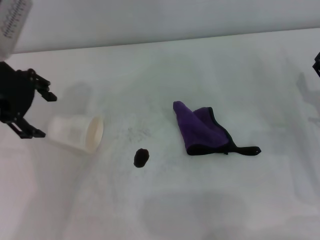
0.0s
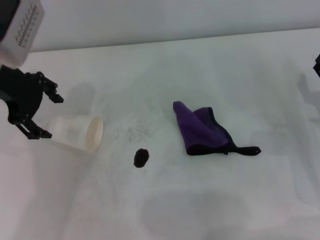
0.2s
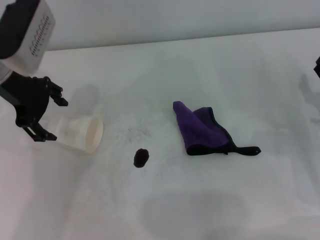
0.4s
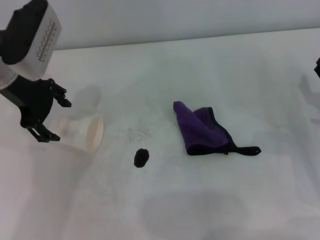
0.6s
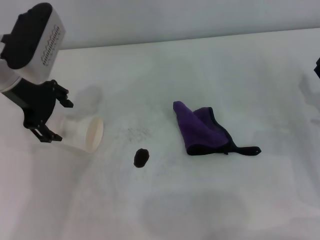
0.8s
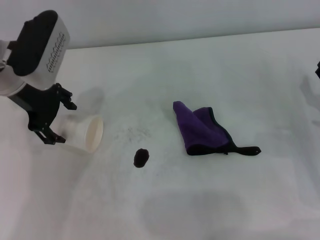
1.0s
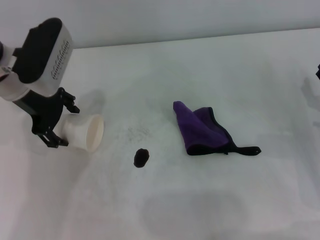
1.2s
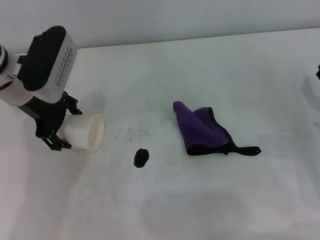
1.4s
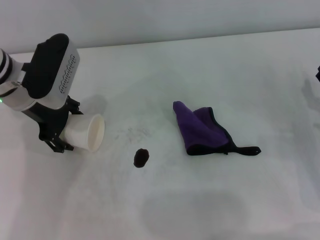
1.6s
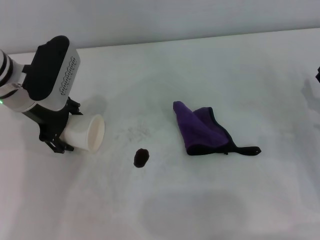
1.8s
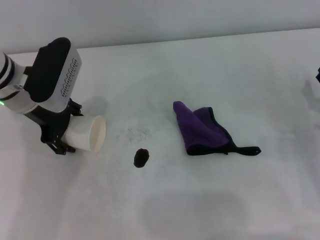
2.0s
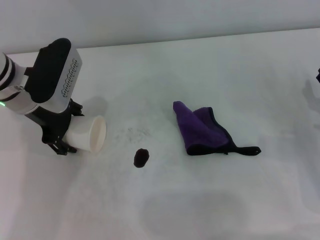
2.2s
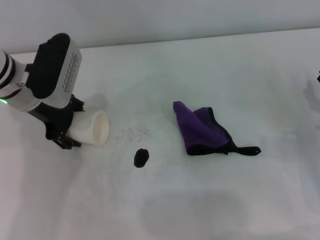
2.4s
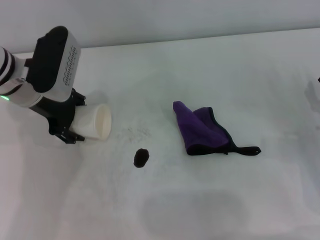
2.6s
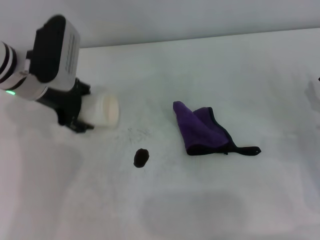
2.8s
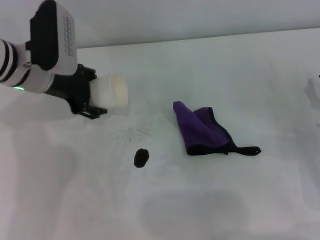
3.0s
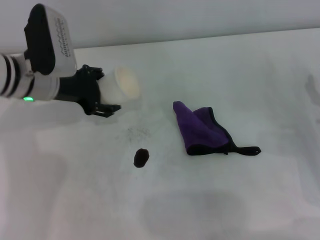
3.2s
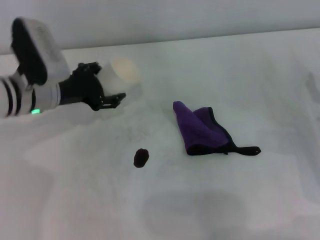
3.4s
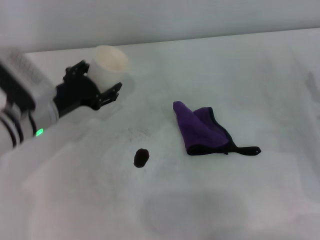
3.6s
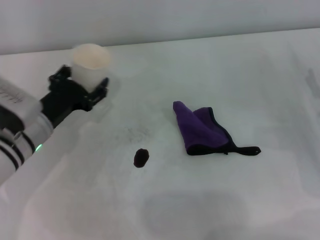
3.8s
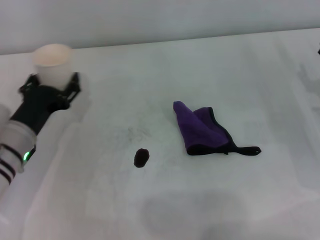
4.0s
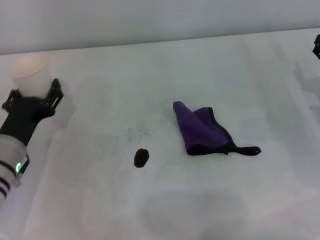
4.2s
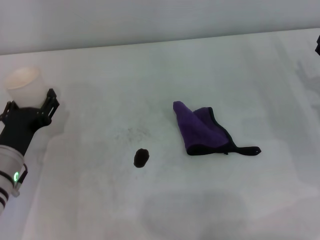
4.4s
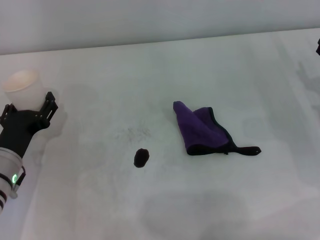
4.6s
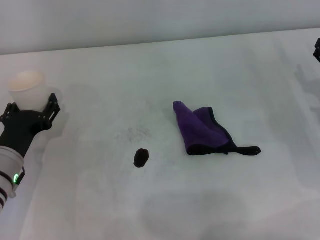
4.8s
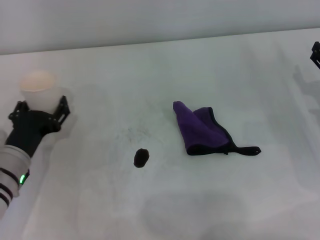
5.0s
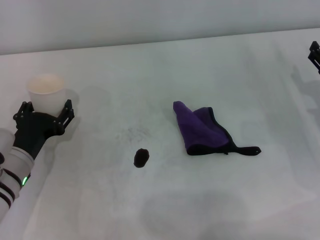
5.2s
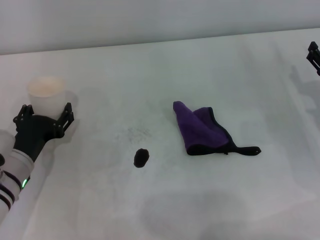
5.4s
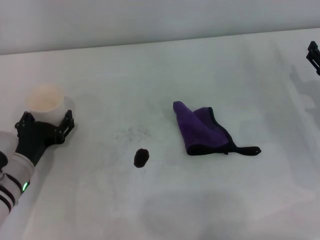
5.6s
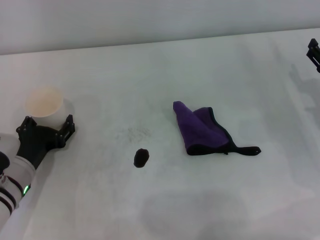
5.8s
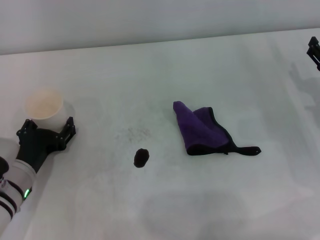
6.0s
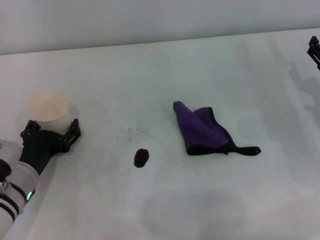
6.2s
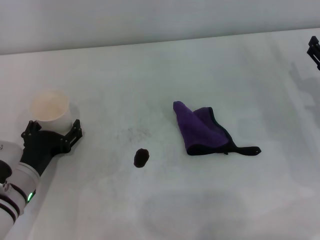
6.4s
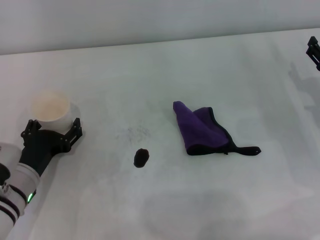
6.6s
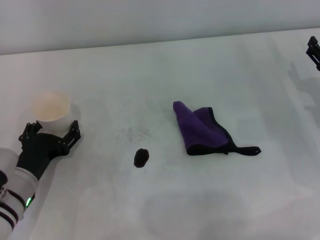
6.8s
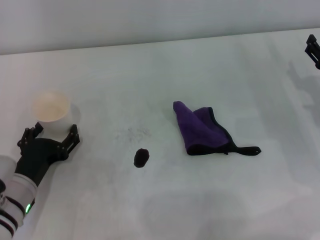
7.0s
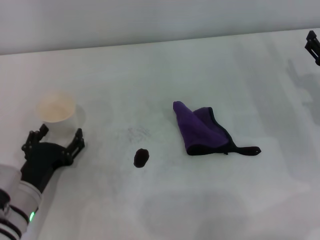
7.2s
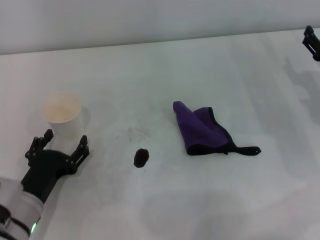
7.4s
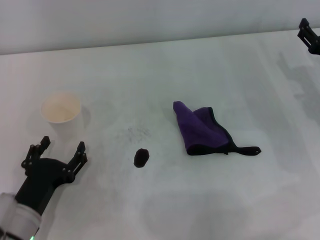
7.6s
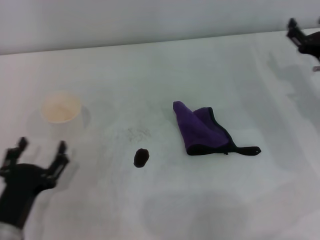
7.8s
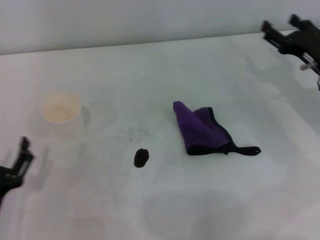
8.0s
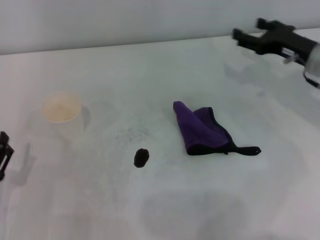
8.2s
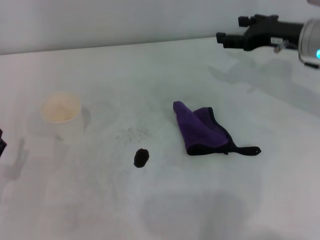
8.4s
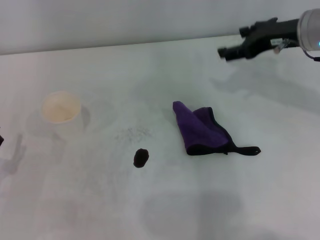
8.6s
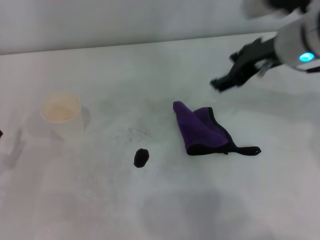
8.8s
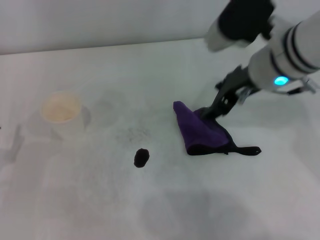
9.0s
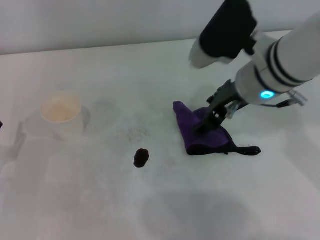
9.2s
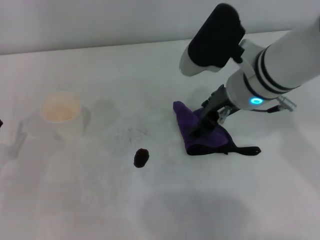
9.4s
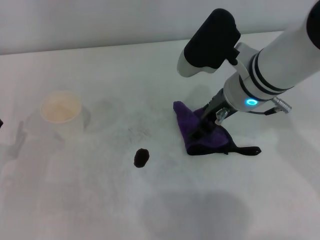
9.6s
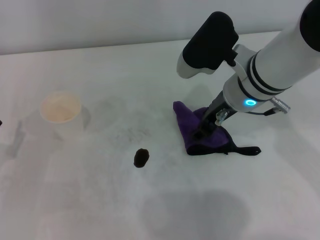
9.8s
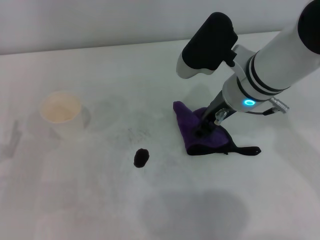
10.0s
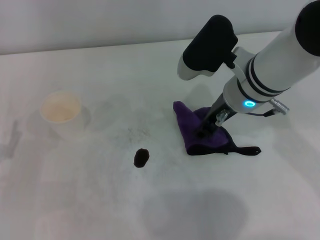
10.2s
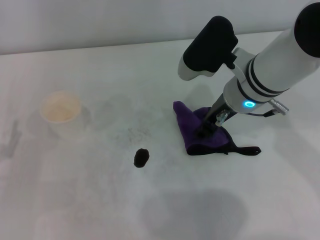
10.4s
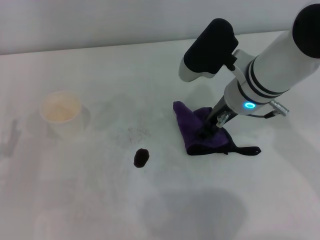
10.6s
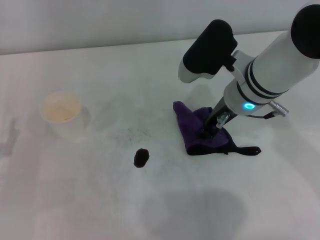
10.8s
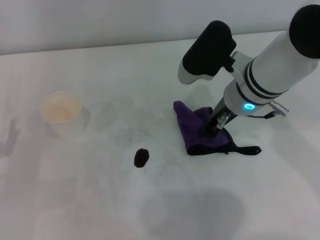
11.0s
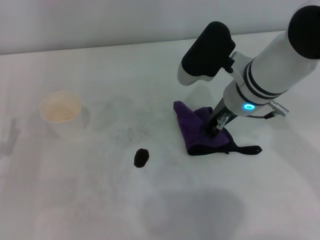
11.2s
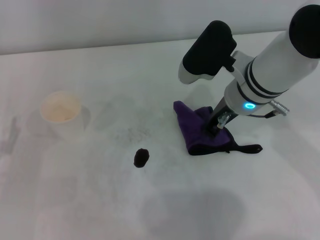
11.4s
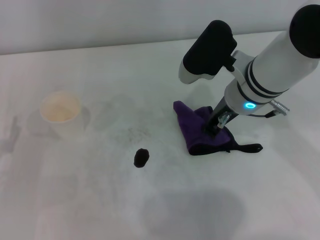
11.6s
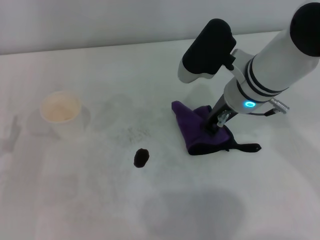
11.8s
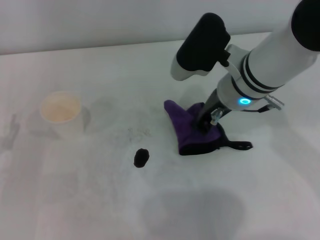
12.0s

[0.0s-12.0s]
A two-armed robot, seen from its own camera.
Step, 0.0s to 2.2s: Grasp the paper cup with the left gripper.
Step, 2.4s to 6.8s: Stand the paper cup upright with the left gripper.
Step, 7.0s to 11.2s: Grasp the rag with the right gripper.
0.0s to 1.6s: The left gripper heads downward, covering some 10 cm.
3.0s to 4.4s: The left gripper heads backward and downward, covering roughly 20 cm.
4.4s to 6.0s: The grippers stay close to where they were, moving slightly.
6.0s to 7.6s: The left gripper goes some 5 cm backward.
7.6s to 9.0s: The left gripper is displaced to the left by approximately 10 cm. Meanwhile the right gripper shifts some 20 cm to the left and upward.
9.0s to 10.4s: The right gripper ends up about 5 cm from where it was, and closes.
10.4s to 12.0s: The right gripper closes up.

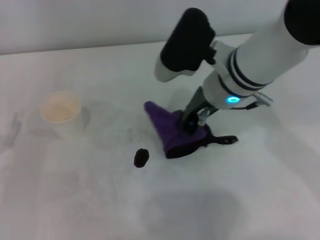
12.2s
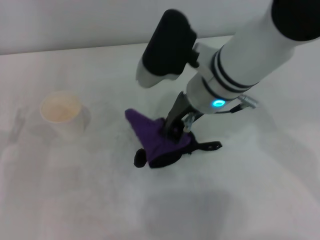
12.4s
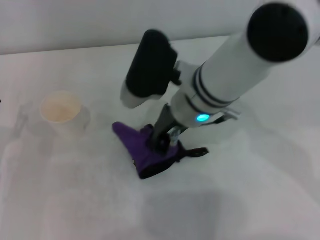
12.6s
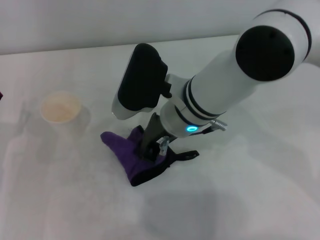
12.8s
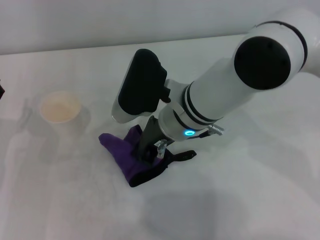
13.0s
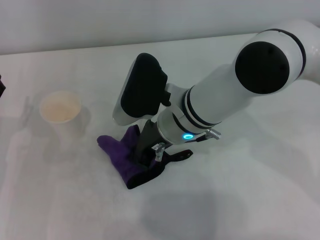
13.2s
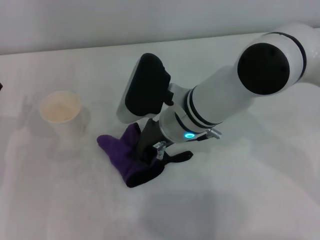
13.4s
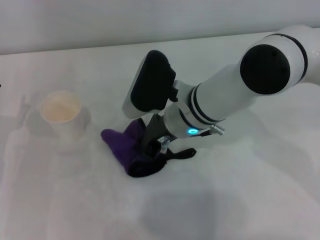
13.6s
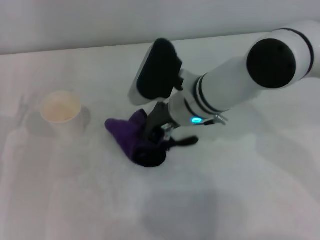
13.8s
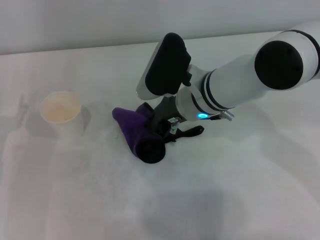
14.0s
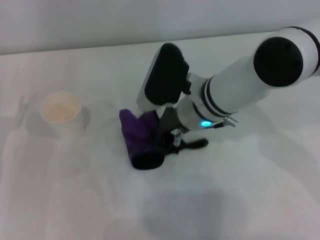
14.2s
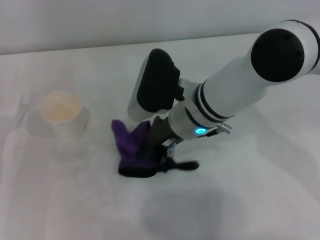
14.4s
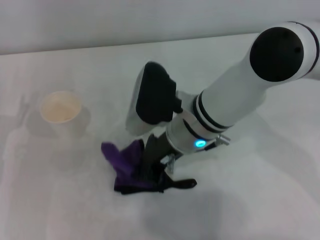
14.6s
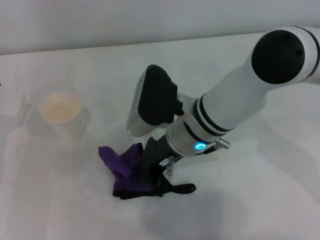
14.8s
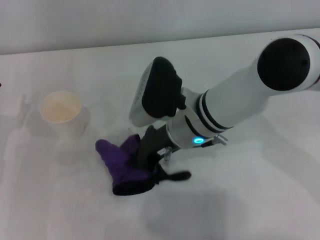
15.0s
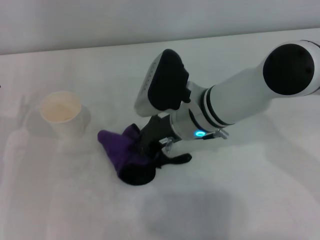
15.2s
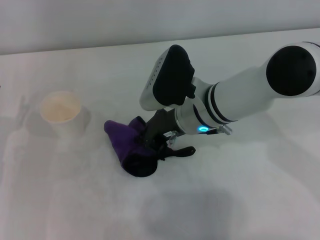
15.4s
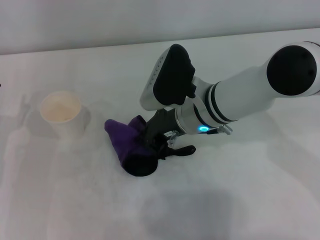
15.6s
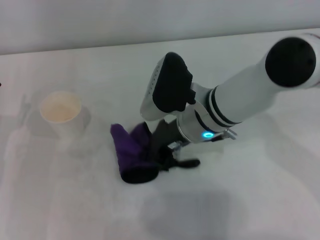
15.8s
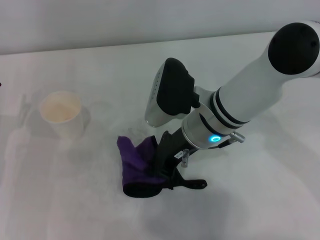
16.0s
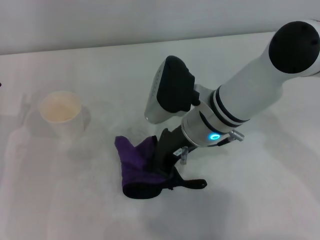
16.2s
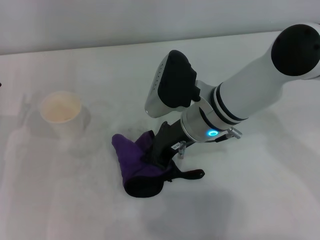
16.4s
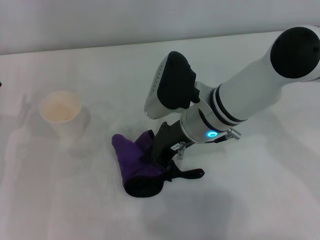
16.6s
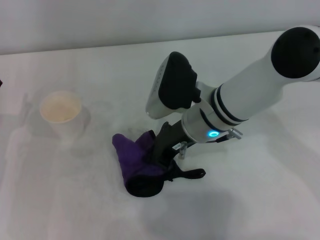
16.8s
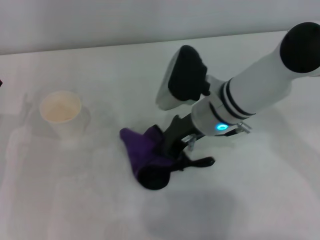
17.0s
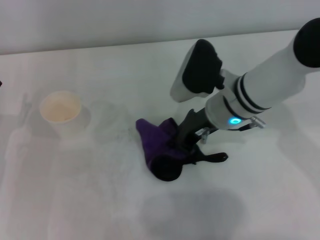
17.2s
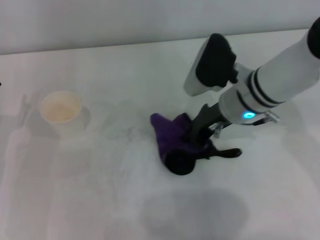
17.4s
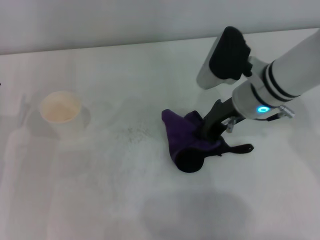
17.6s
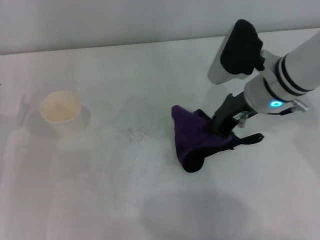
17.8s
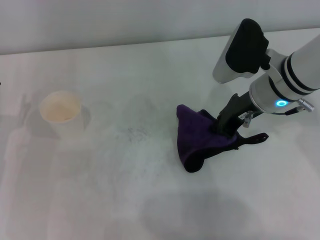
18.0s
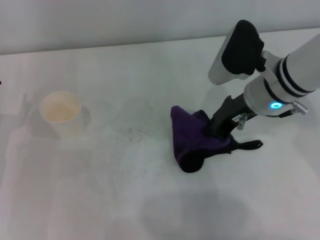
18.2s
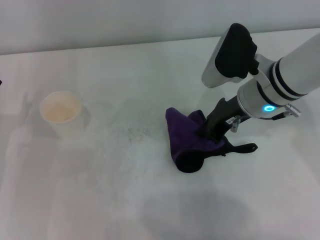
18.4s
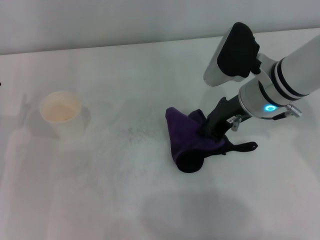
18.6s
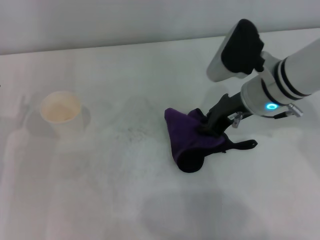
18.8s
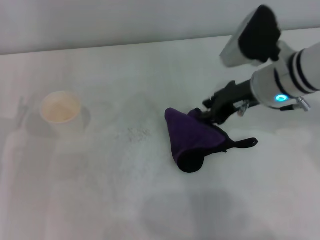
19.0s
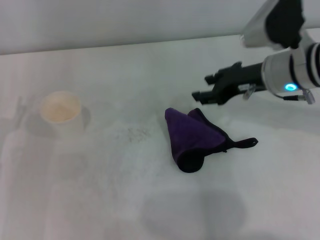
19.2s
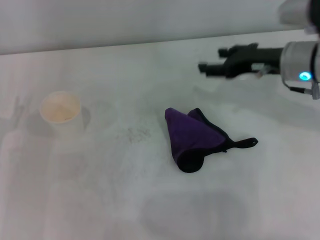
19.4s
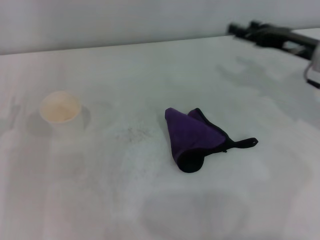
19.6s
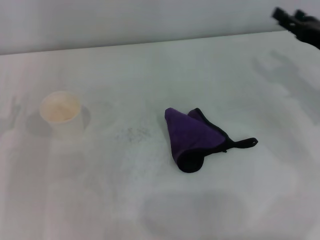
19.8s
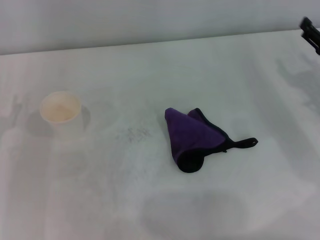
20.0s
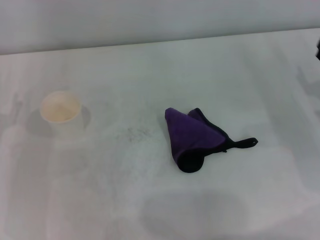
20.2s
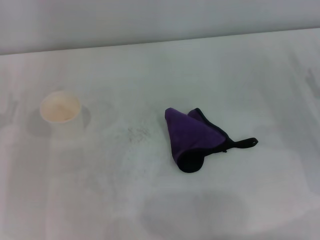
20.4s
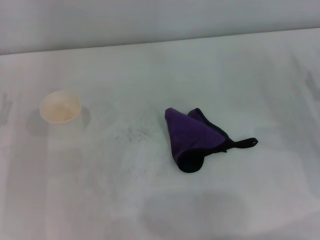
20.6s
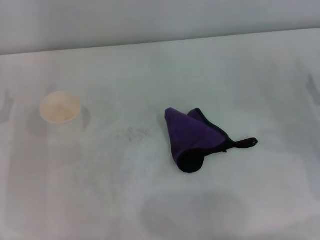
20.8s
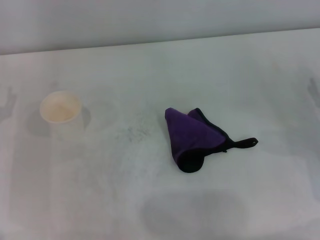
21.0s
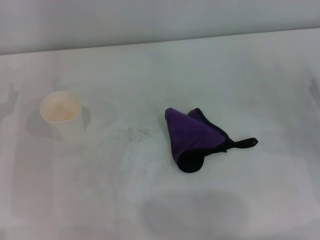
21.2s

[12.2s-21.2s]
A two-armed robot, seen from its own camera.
Step, 12.2s to 17.6s: Wipe the stains off the table with the right gripper.
Step, 17.8s to 18.8s: Place the rag on the table with the right gripper.
12.2s to 13.8s: The right gripper travels downward by about 5 cm.
13.8s to 16.6s: The grippers move only a little.
16.6s to 18.2s: The right gripper heads to the right, covering some 10 cm.
18.2s to 19.8s: The right gripper heads to the right, covering about 15 cm, and opens.
19.8s to 21.2s: The right gripper moves downward and backward, some 10 cm.

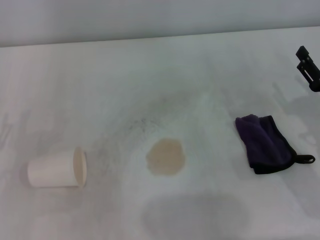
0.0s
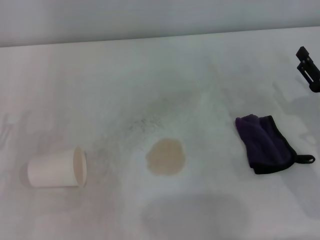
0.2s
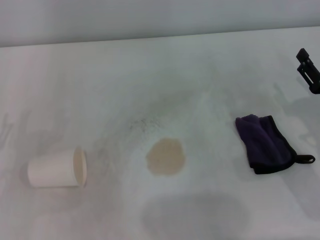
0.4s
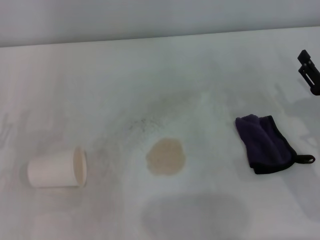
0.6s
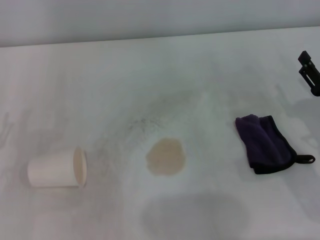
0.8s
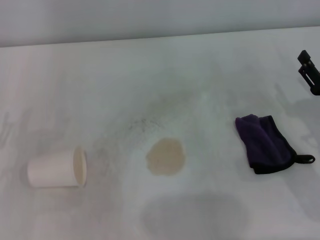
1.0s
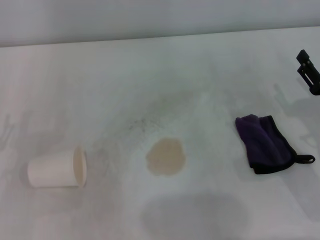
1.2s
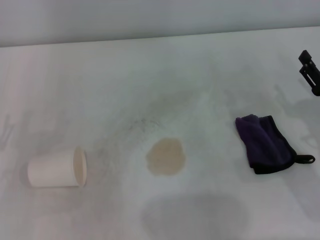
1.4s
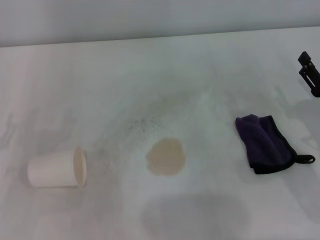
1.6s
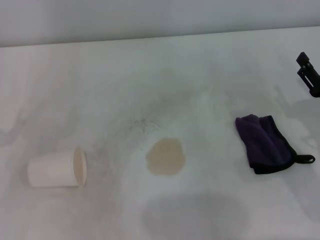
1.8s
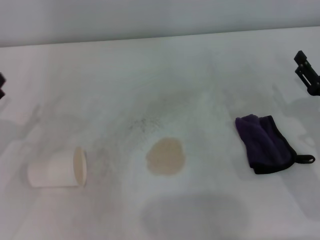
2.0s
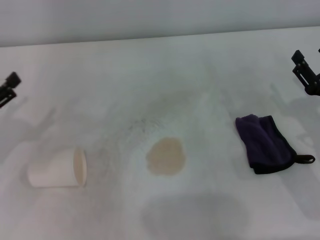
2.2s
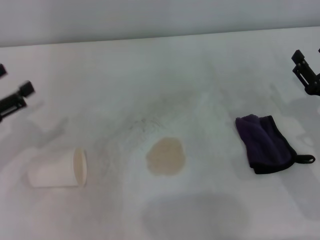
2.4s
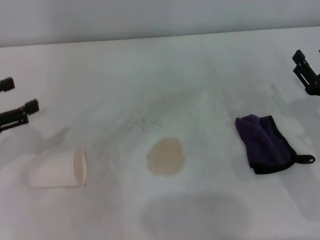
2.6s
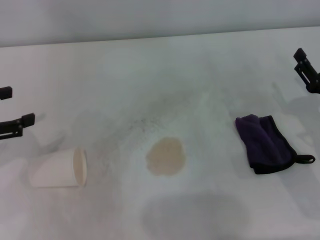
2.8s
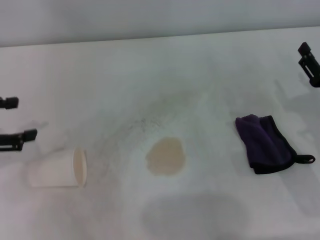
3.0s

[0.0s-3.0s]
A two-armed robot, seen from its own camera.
0.0s to 1.6s: Both grippers stay put.
1.6s to 3.0s: The left gripper moves upward and forward, roughly 15 cm.
